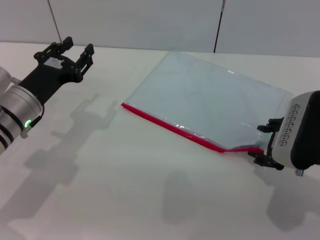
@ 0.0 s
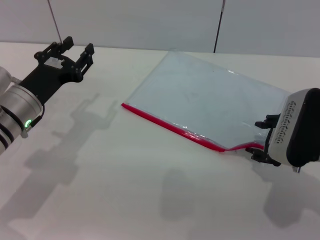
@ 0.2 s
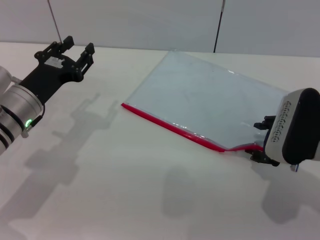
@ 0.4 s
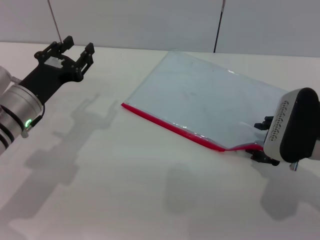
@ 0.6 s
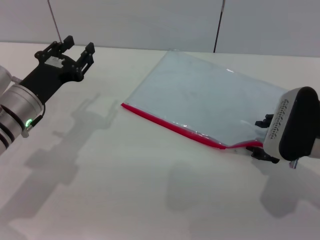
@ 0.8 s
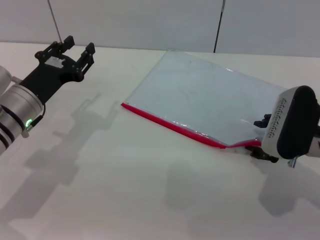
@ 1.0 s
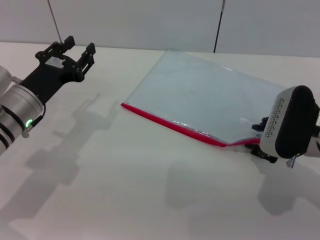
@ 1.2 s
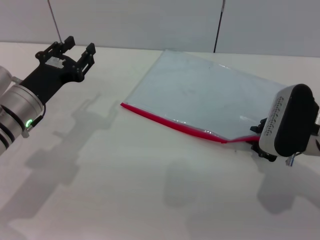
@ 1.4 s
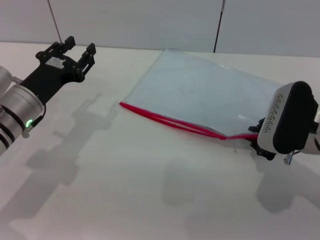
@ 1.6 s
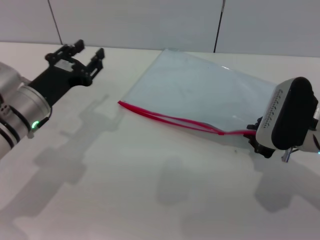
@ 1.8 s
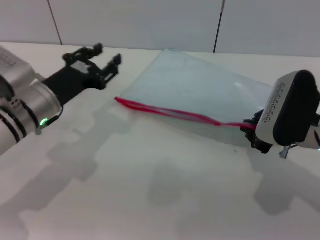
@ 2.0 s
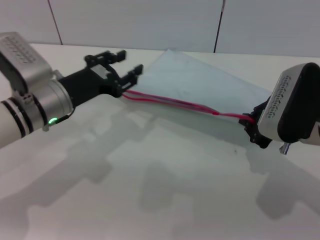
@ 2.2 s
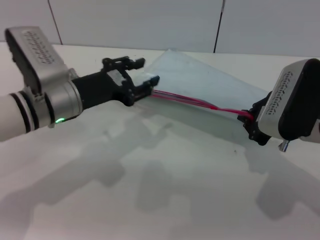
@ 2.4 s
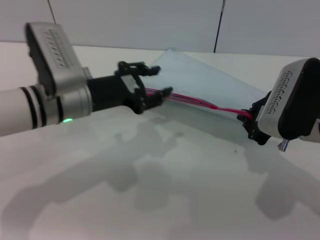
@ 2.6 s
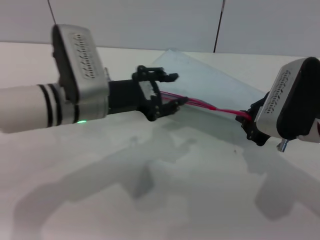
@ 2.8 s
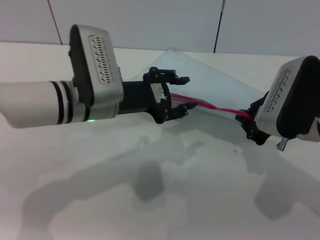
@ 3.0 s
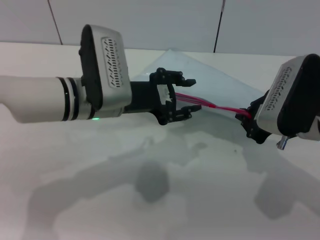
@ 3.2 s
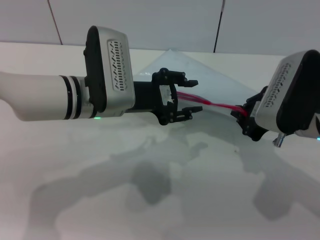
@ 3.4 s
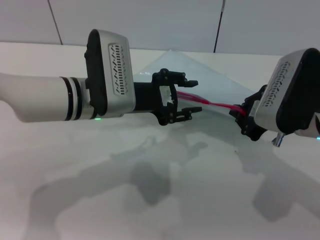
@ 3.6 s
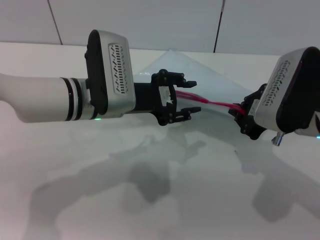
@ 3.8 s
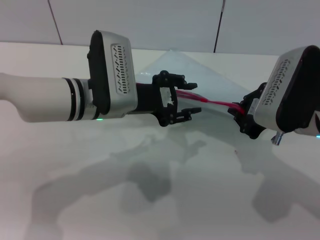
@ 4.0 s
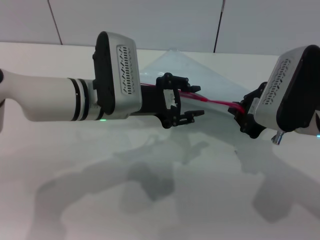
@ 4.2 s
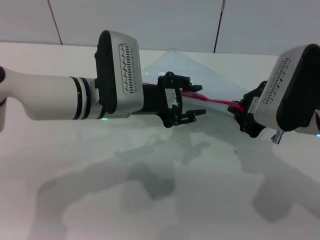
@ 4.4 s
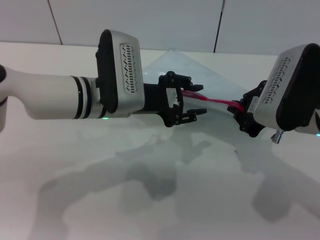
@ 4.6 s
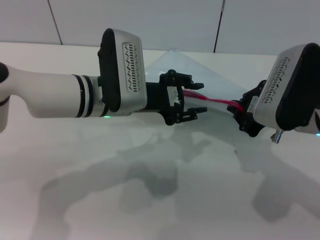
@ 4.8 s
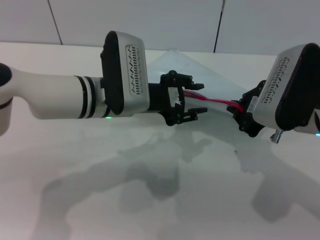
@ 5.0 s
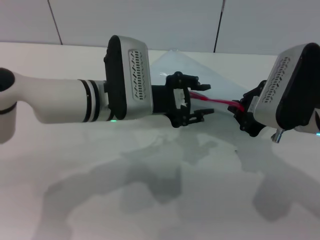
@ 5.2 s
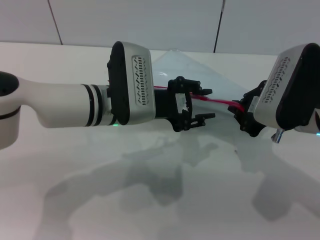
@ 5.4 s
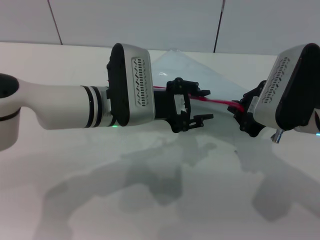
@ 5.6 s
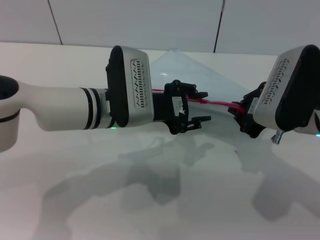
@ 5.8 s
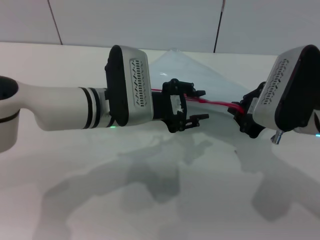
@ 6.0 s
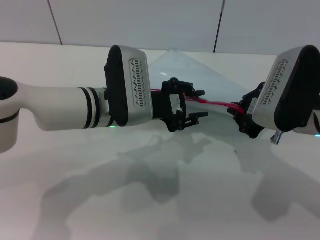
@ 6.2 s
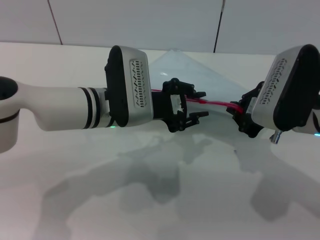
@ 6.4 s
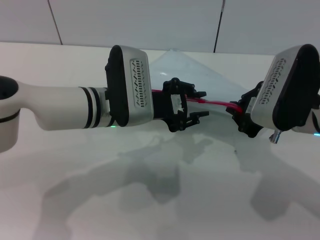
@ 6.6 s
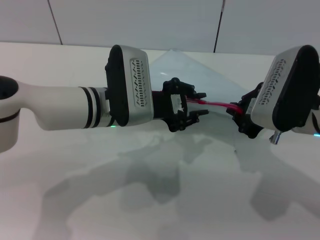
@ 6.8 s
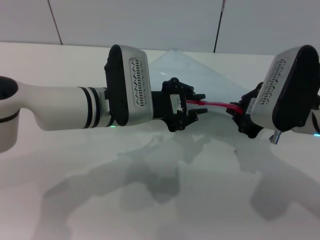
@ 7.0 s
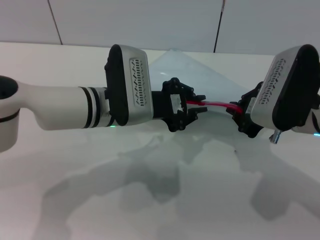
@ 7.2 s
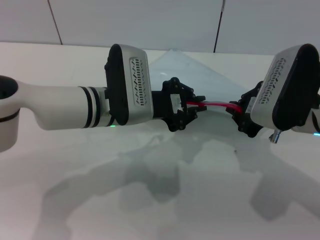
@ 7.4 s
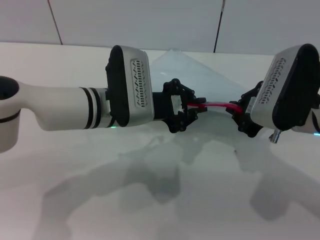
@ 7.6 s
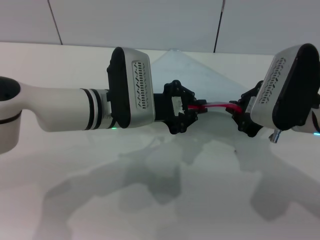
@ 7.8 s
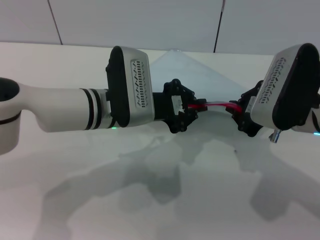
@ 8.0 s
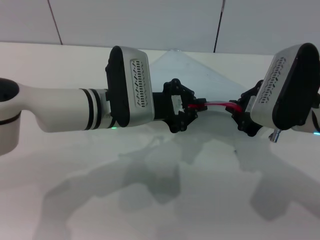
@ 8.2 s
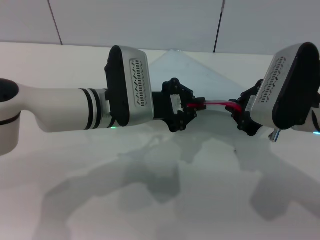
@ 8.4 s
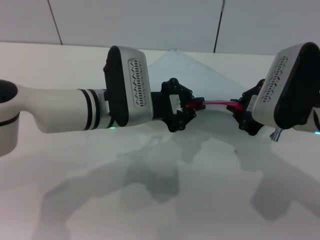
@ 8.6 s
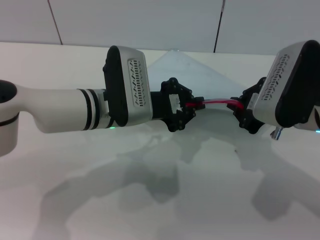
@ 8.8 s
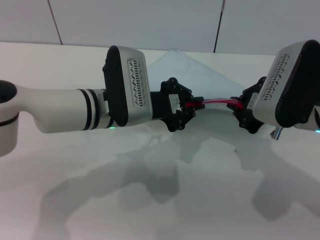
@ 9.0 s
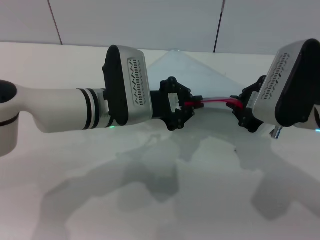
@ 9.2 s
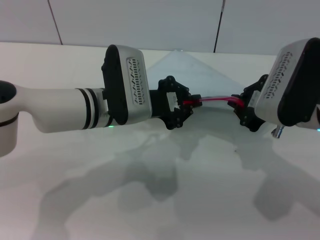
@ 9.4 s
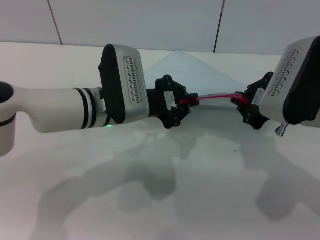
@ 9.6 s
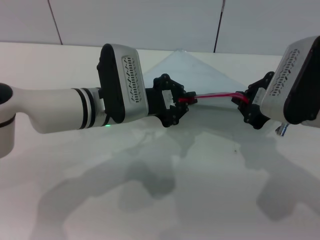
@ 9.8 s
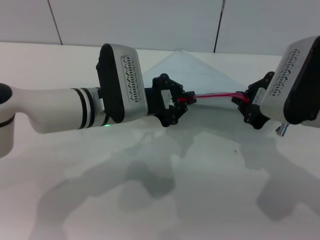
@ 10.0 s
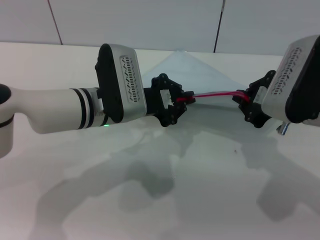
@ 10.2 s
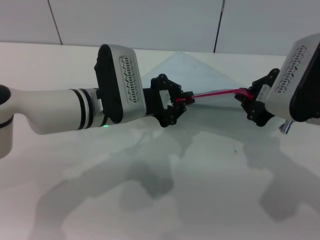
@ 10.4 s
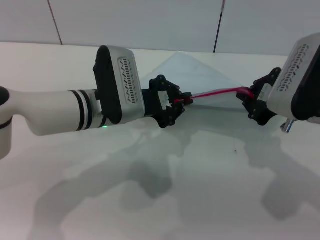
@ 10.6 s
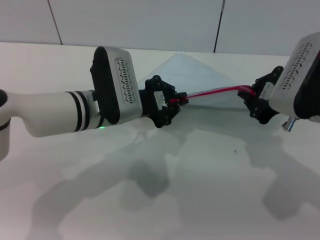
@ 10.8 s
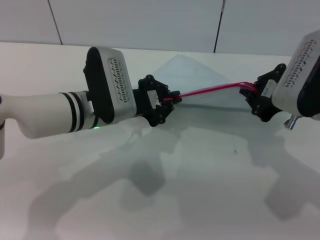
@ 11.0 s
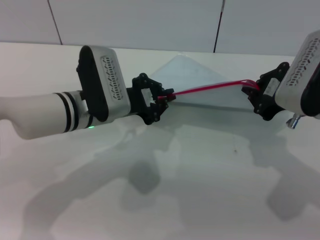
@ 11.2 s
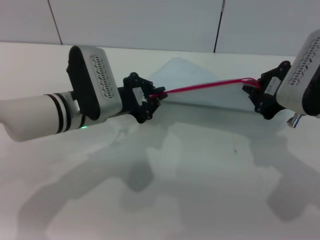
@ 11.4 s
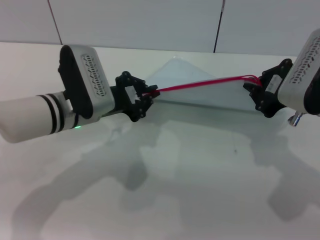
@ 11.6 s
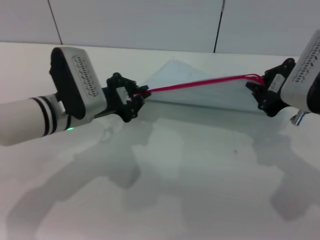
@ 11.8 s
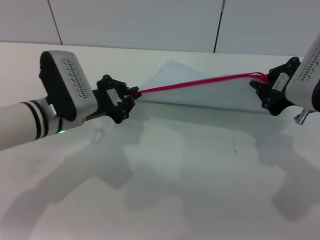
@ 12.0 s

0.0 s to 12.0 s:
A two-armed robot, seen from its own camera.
Step, 0.0 to 3.6 s: Pick up the transparent plastic bag with the right gripper.
0.0 to 1.6 s: The right gripper closes.
1.6 to 3.0 s: The right gripper closes its fingers. Meanwhile the left gripper travels to the right by about 10 cm.
3.0 to 6.0 s: The grippers stay close to where they were, moving slightly.
6.0 to 7.6 s: The left gripper closes up.
7.6 to 9.0 s: The two grippers keep their place.
9.0 to 10.4 s: The grippers move only a little.
10.4 to 12.0 s: The left gripper goes some 5 cm to the left.

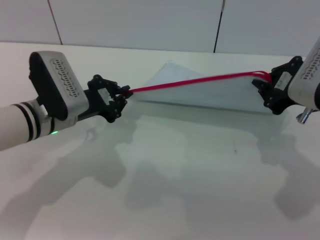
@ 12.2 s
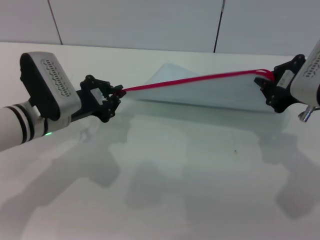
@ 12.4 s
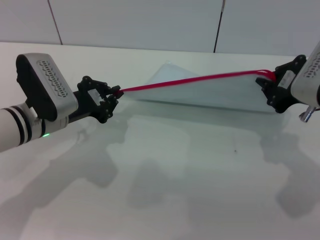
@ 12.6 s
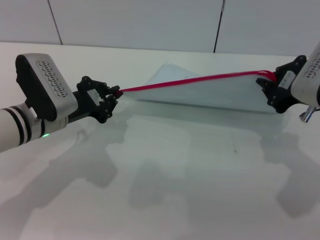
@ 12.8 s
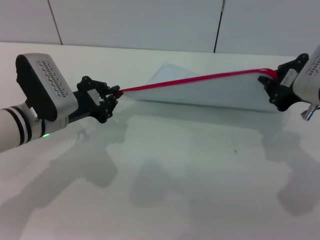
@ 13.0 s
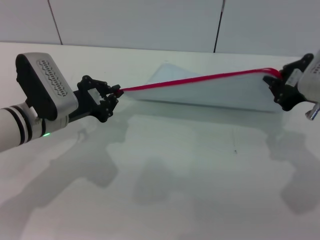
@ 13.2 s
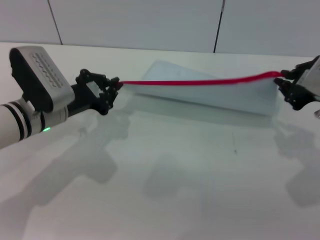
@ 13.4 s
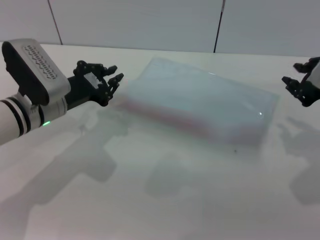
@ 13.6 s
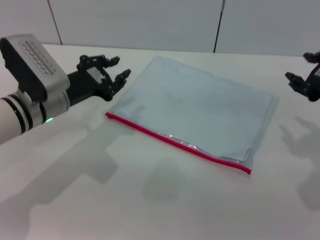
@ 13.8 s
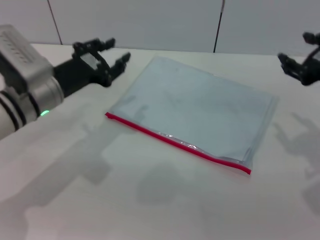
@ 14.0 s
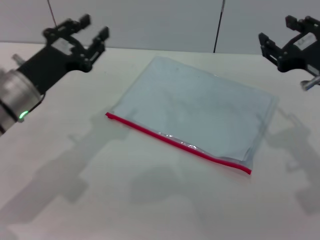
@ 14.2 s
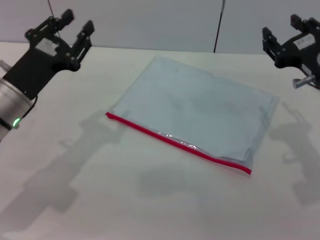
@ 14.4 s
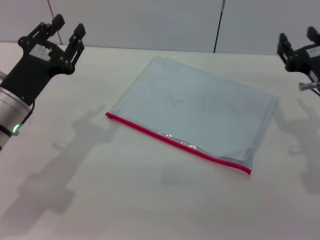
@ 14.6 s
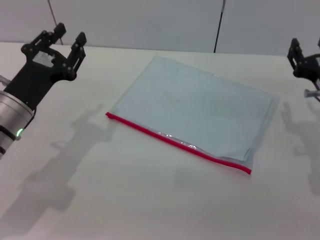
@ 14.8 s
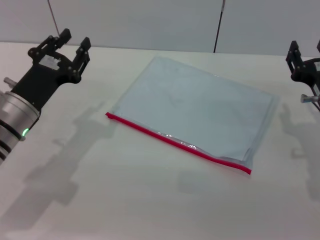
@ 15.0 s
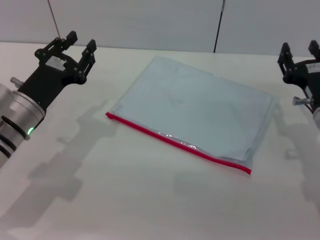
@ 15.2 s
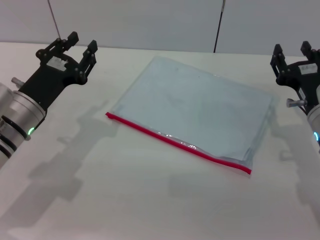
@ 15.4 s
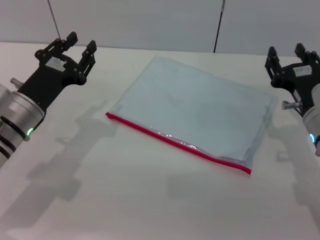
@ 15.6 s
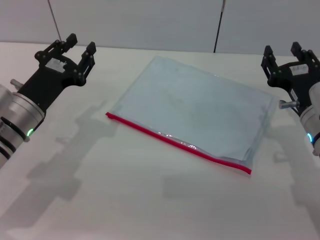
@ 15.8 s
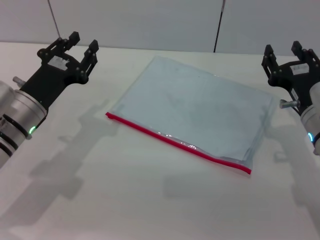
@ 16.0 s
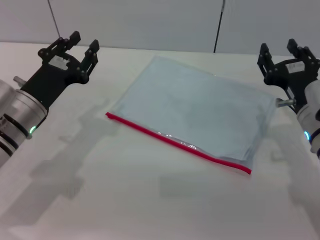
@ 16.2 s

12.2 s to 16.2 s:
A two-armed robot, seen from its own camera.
Step, 13.4 to 14.2 s: Place the transparent plastic bag.
13.6 to 14.8 s: The left gripper shifts by roughly 5 cm, and opens up. Meanwhile the right gripper travels downward by approximately 10 cm, and opens up.
14.8 to 16.2 s: The grippers make only small movements.
